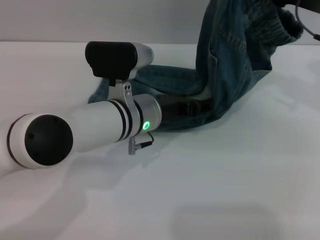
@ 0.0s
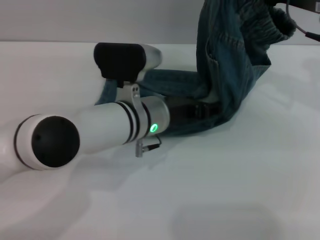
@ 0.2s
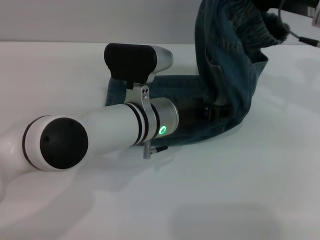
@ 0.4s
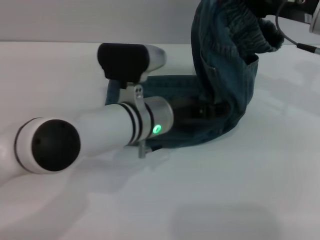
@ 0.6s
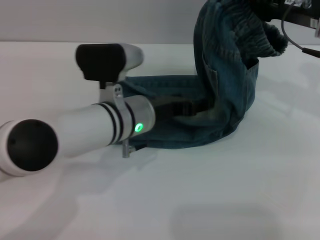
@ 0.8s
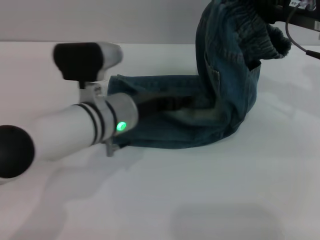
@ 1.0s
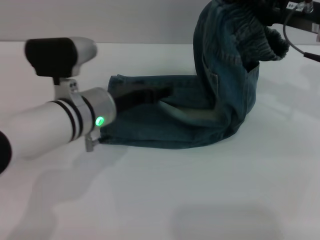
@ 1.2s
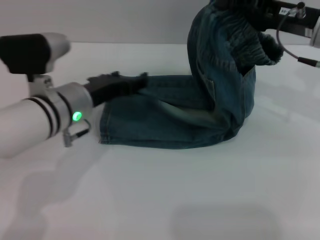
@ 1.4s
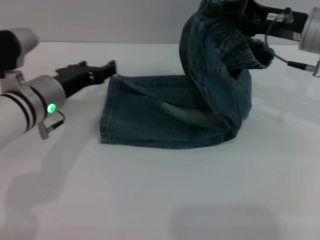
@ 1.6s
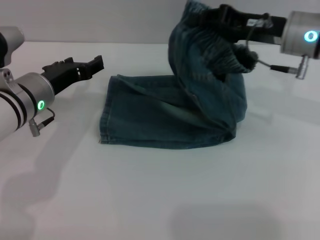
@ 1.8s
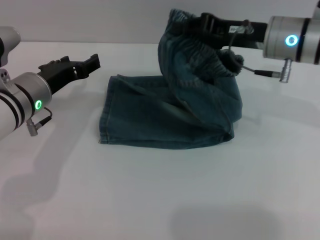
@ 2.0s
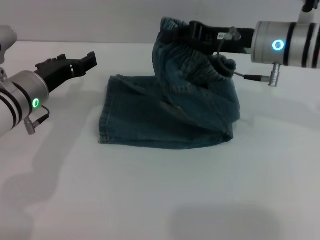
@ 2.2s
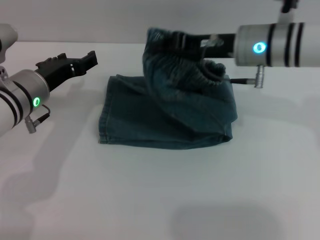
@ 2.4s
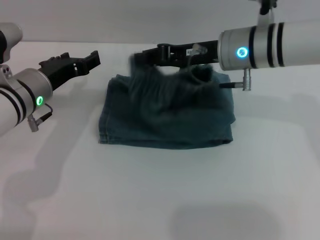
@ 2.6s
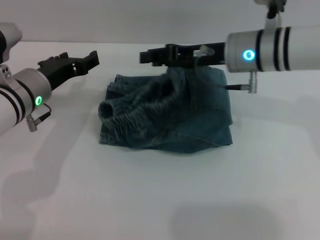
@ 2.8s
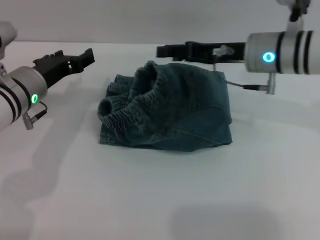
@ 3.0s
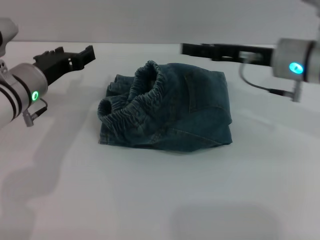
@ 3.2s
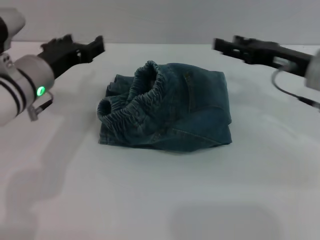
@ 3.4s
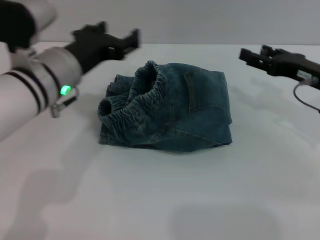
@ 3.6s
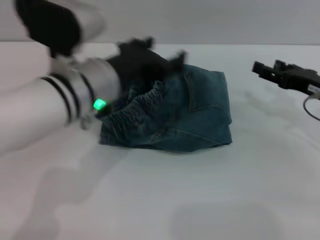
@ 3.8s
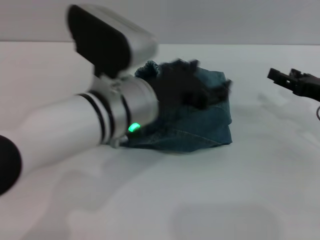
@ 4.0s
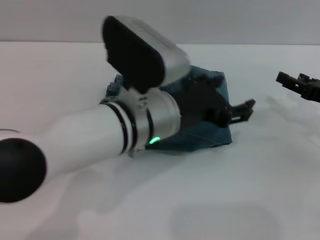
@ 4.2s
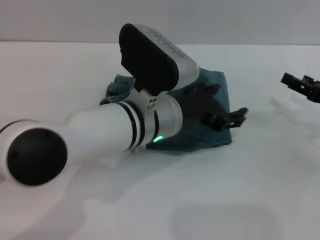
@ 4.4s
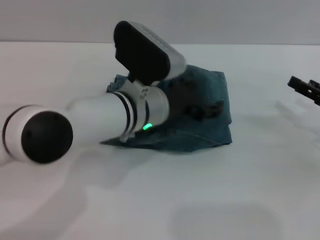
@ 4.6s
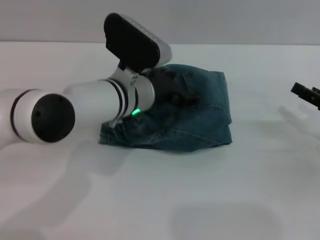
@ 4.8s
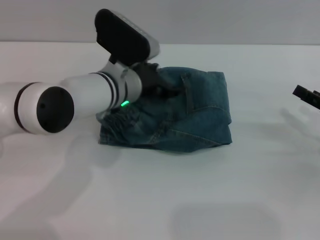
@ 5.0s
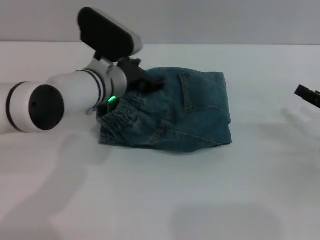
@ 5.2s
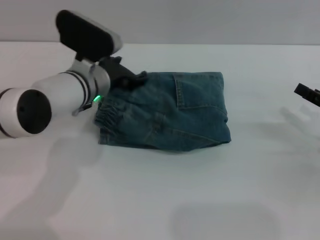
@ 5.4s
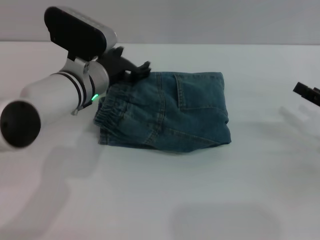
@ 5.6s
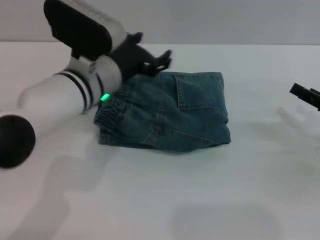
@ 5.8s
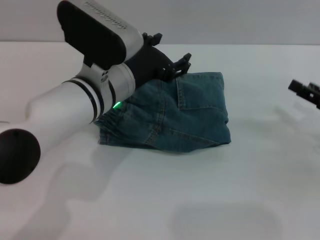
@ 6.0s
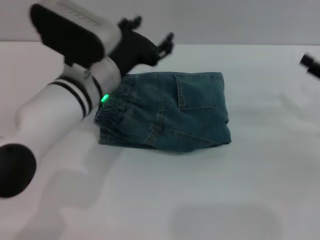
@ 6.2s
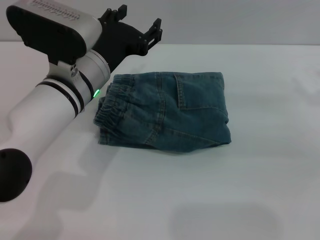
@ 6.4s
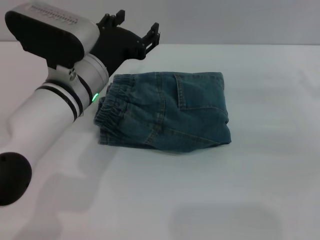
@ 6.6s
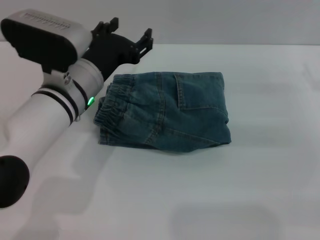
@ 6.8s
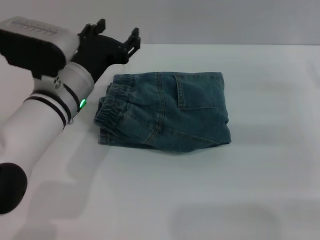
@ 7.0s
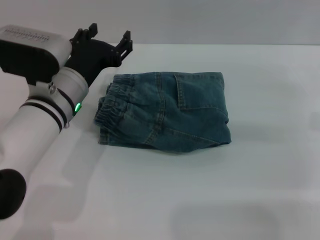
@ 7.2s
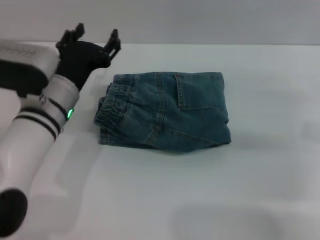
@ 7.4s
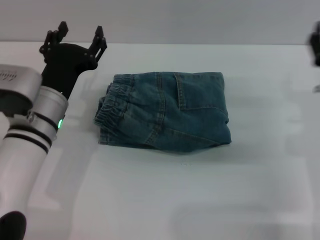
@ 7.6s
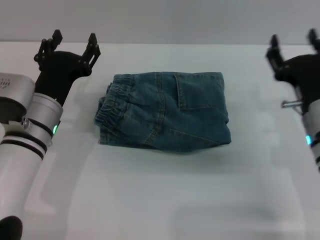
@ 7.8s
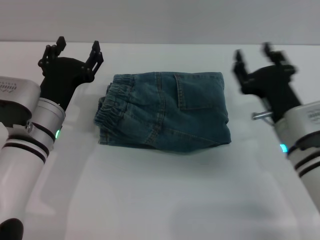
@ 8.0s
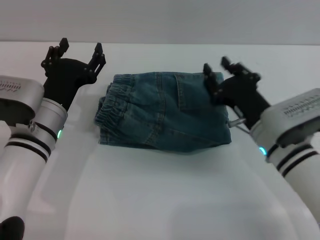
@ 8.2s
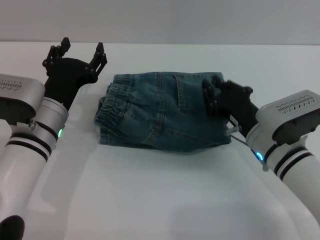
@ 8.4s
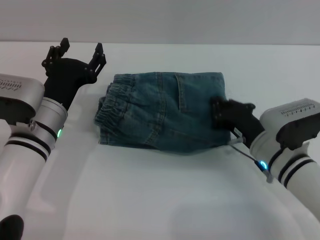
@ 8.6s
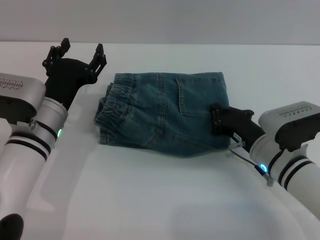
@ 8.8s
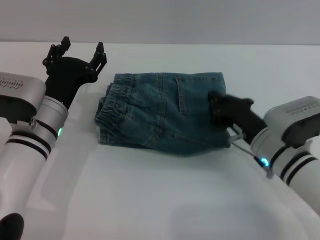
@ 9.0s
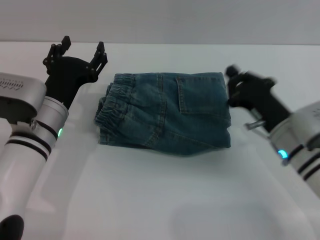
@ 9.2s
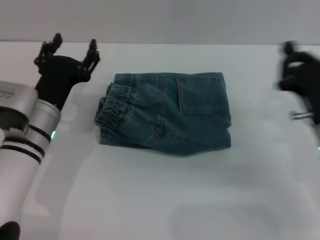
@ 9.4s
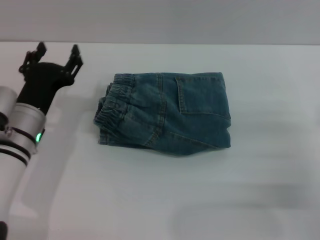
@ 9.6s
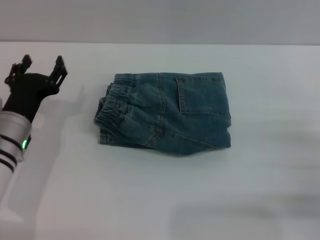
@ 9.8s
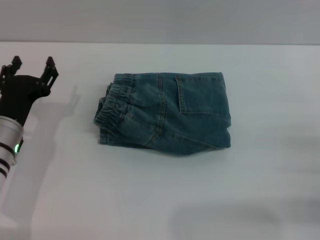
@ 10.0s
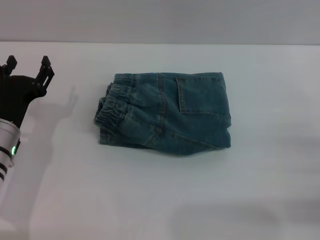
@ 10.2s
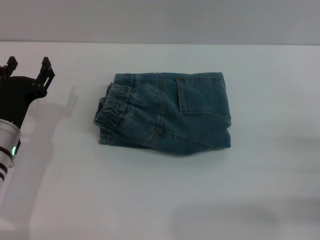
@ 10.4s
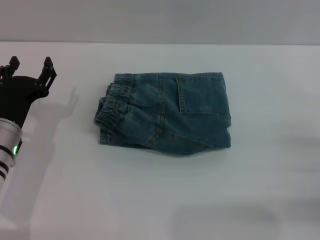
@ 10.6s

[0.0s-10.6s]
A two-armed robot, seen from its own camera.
Step, 0.0s to 3.4s: Fold the pants from right to left with the right gripper.
0.0s to 1.6s: The left gripper heads to the left, covering approximately 10 cm.
1.6s to 3.0s: The right gripper is displaced to the left by about 5 cm, and opens up.
3.0s to 4.6s: The right gripper is displaced to the right, backward and downward by some 20 cm, and opens up; the left gripper heads to the right, covering approximately 15 cm.
6.0s to 7.6s: The right gripper moves to the left, some 10 cm; the left gripper is displaced to the left and downward by some 10 cm.
7.6s to 9.0s: The right gripper goes approximately 10 cm to the left and downward, and closes up.
9.0s to 10.6s: The left gripper goes about 5 cm to the left; the right gripper travels to the right and backward by roughly 20 cm, and opens its fingers.

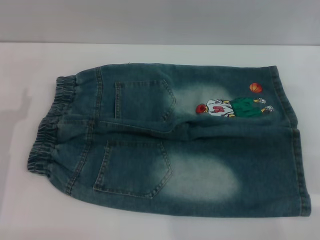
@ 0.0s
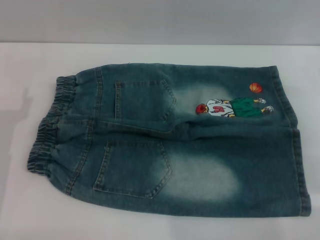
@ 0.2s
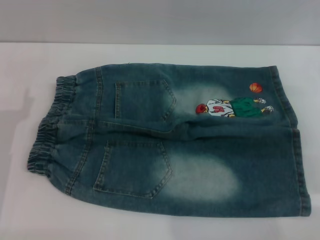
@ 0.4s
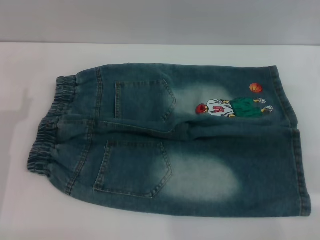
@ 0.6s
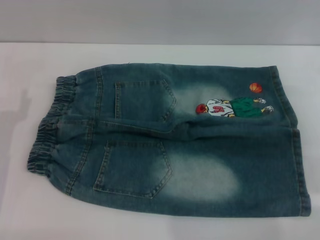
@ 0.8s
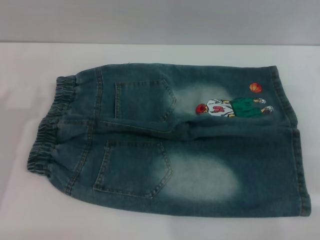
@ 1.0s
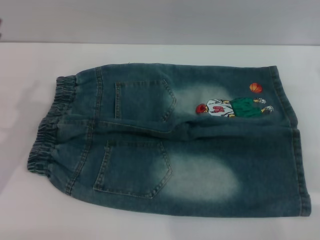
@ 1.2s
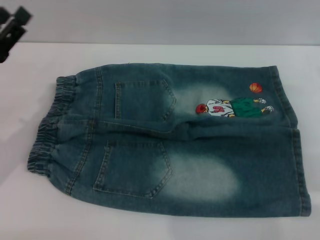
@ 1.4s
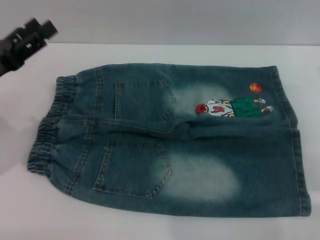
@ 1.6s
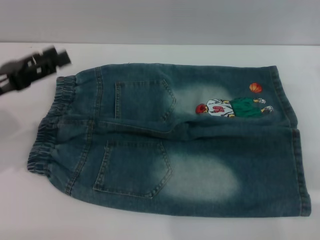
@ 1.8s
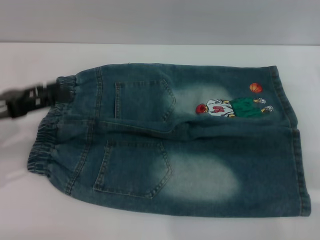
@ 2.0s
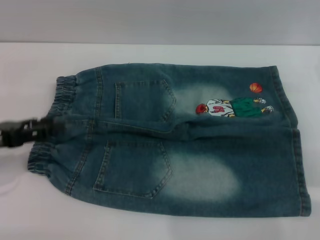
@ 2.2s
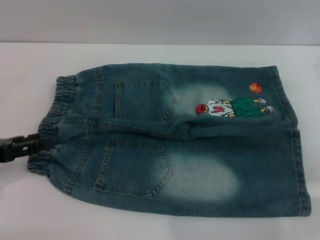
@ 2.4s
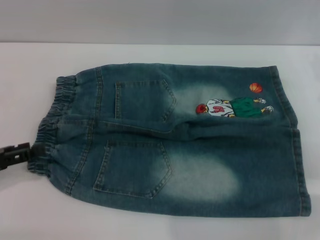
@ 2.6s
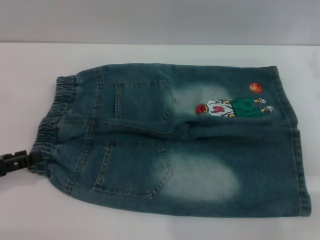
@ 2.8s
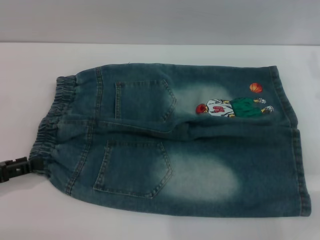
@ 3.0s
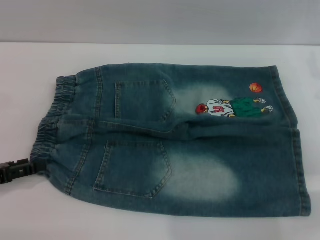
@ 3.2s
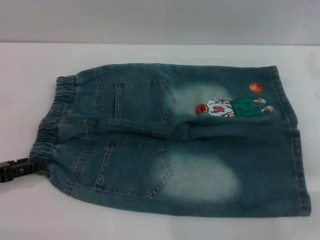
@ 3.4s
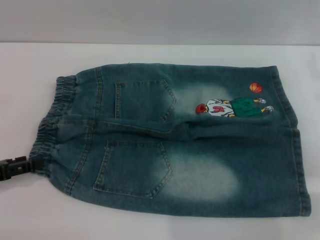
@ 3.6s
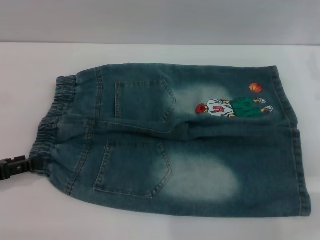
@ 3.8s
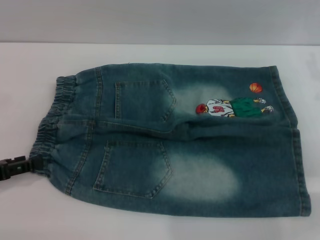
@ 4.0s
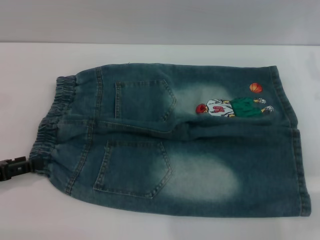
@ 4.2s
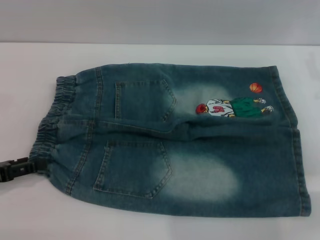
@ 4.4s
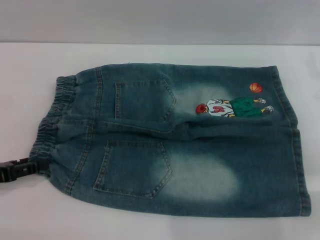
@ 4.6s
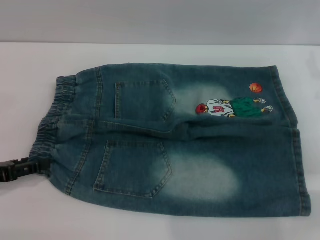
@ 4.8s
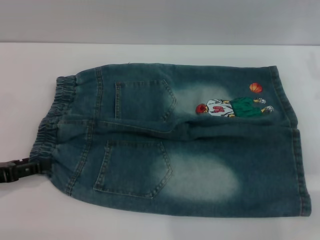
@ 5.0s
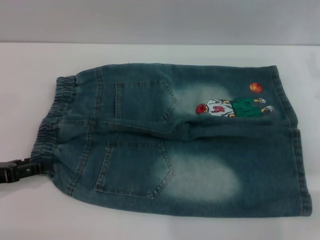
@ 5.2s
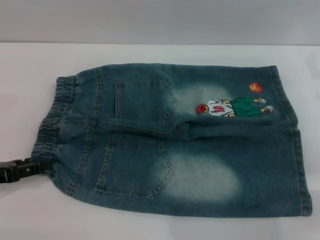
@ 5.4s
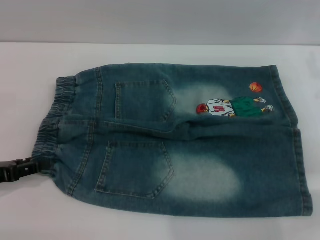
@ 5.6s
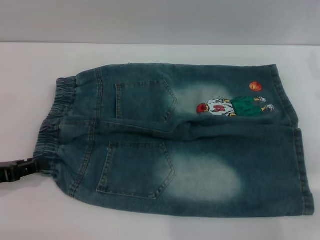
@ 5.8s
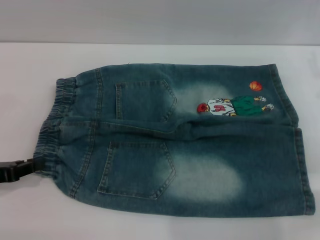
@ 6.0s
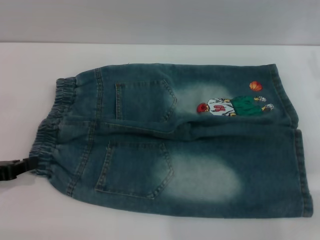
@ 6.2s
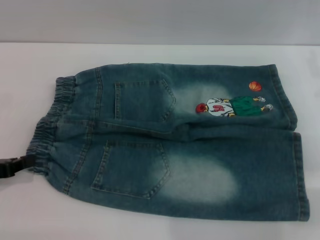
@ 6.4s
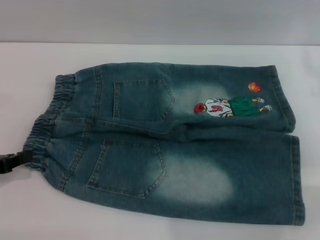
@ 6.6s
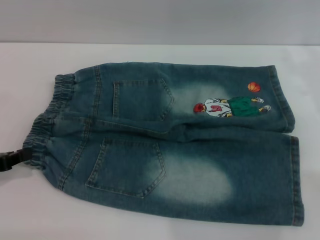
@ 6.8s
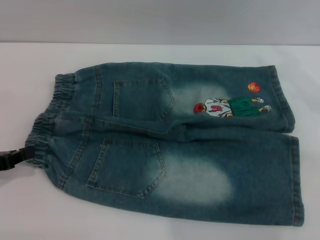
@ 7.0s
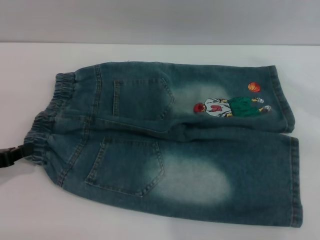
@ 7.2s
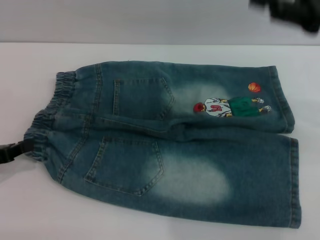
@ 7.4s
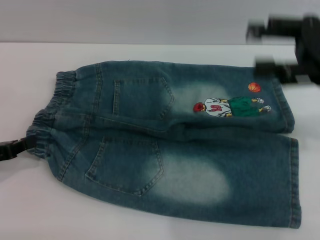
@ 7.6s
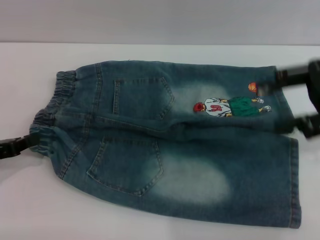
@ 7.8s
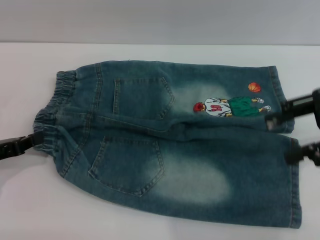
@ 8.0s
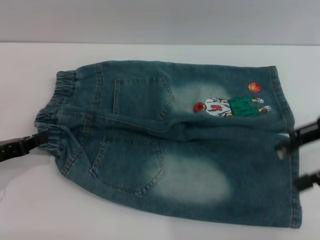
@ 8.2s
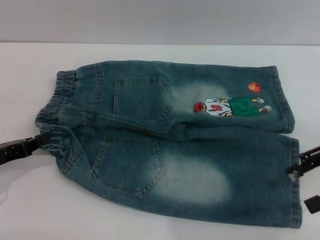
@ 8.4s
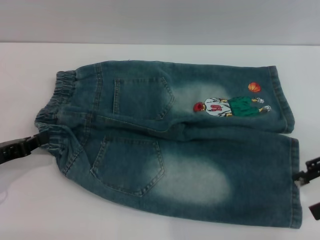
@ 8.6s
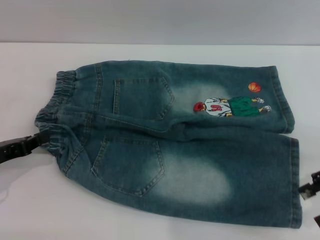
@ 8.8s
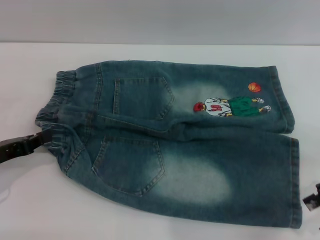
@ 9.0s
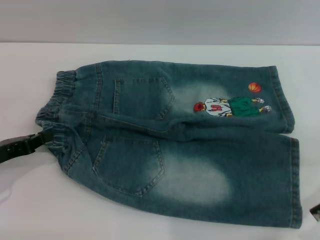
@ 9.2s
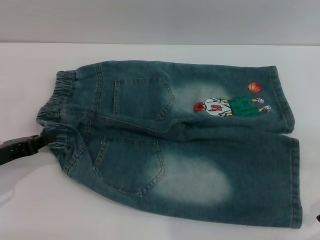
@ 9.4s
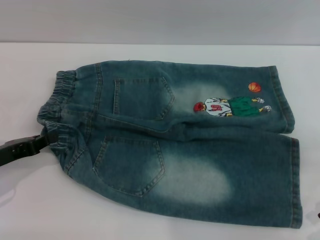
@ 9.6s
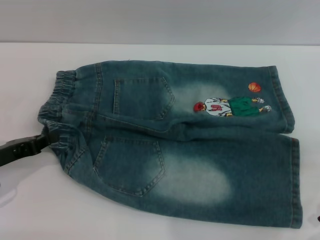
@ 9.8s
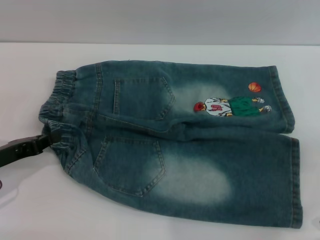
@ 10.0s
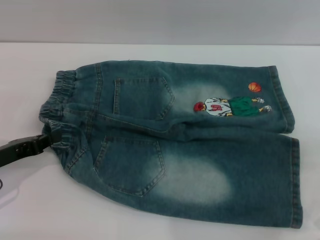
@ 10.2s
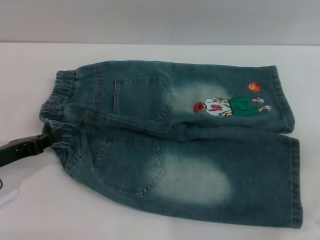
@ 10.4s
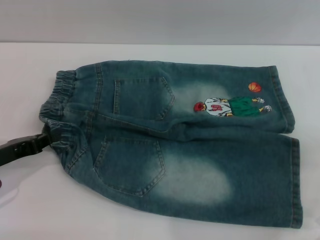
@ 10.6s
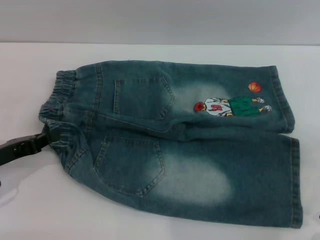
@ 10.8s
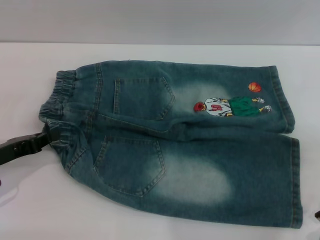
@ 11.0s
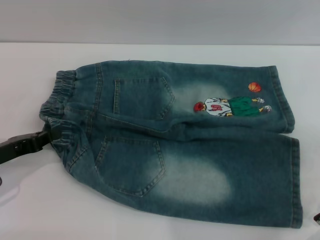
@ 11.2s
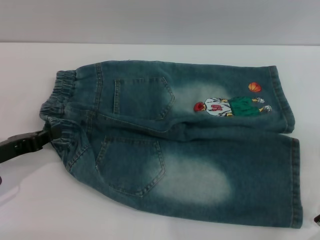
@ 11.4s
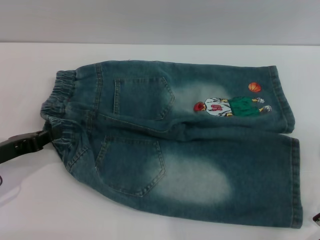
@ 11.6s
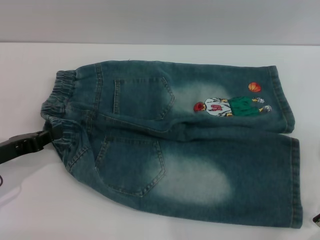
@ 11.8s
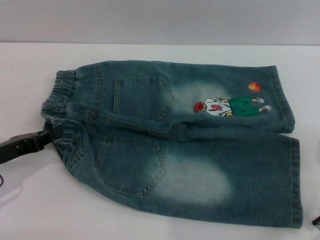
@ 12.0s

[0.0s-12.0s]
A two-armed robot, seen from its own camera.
0.0s to 1.6s: The left gripper travels upward by roughly 5 cm.
1.6s to 3.0s: The left gripper heads backward, downward and to the left, covering approximately 10 cm.
3.0s to 4.4s: Both grippers stay about where they are.
4.4s to 6.0s: The left gripper closes.
6.0s to 7.6s: The right gripper heads upward, covering approximately 10 cm. The left gripper closes.
7.6s to 9.0s: The right gripper shifts approximately 10 cm downward, backward and to the right.
9.0s to 10.4s: The grippers make only small movements.
10.4s to 12.0s: There are only small adjustments of the grippers.
